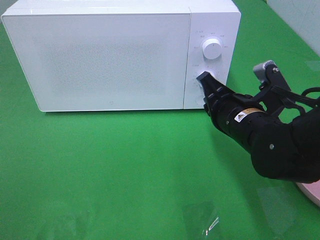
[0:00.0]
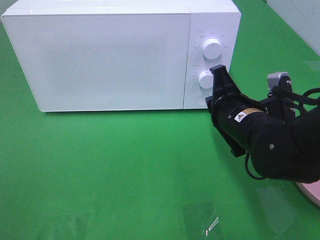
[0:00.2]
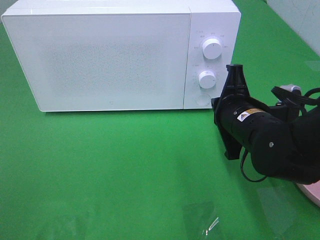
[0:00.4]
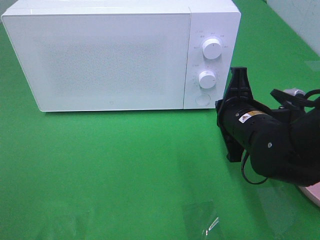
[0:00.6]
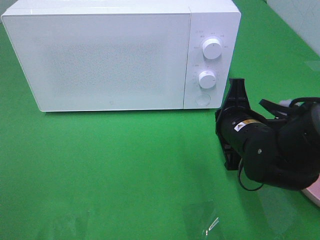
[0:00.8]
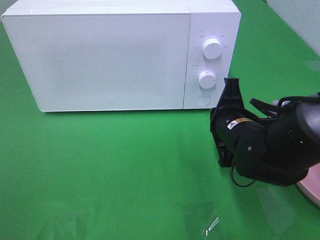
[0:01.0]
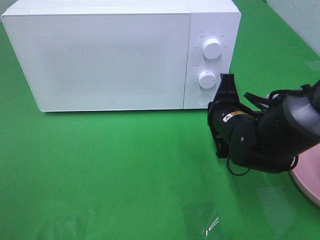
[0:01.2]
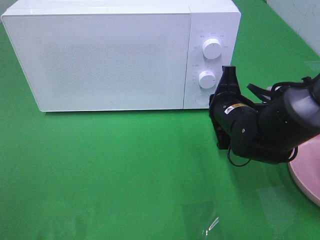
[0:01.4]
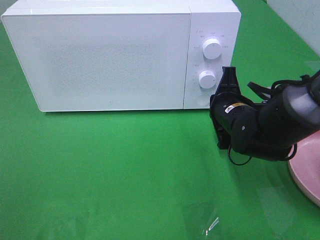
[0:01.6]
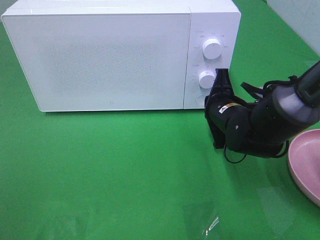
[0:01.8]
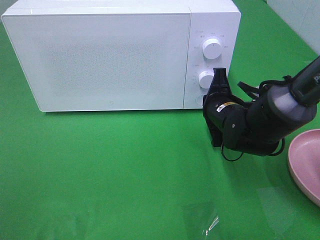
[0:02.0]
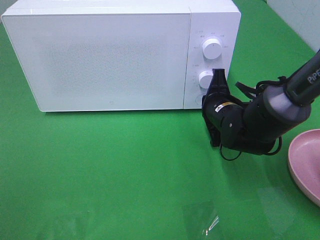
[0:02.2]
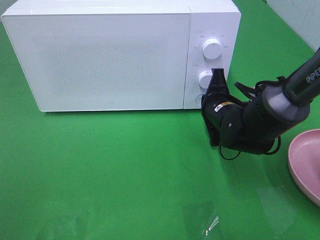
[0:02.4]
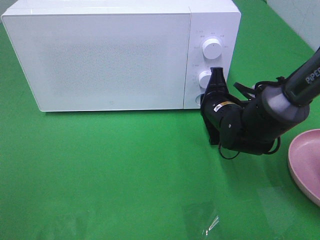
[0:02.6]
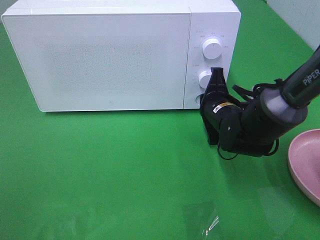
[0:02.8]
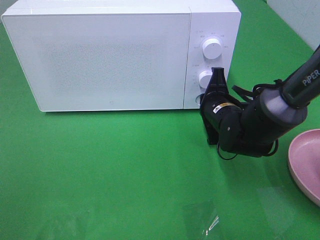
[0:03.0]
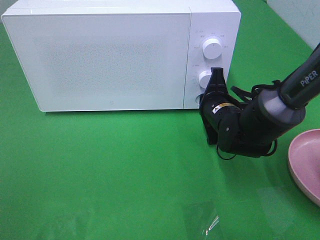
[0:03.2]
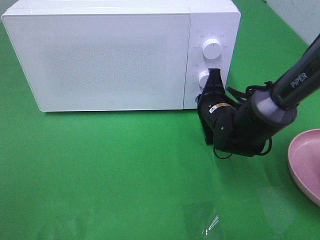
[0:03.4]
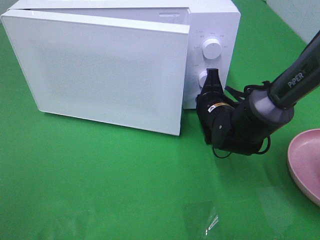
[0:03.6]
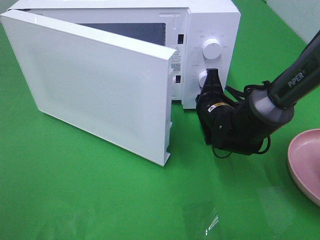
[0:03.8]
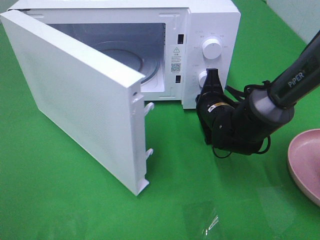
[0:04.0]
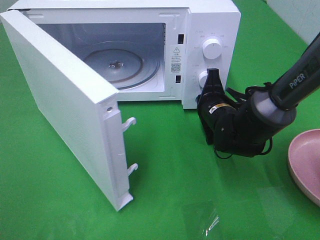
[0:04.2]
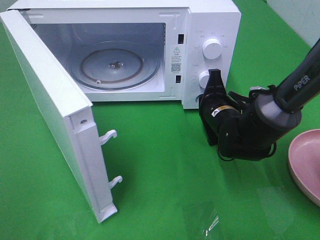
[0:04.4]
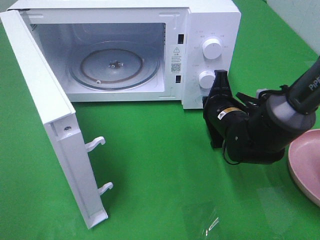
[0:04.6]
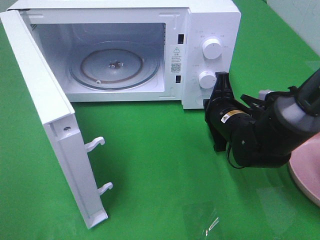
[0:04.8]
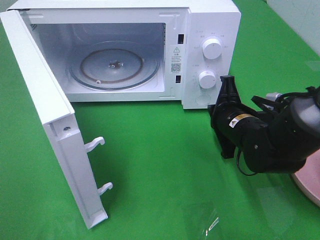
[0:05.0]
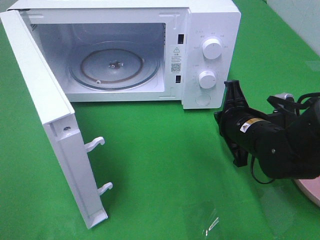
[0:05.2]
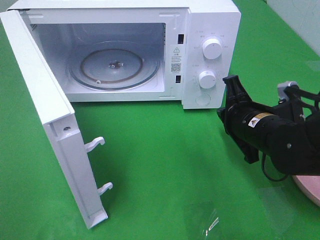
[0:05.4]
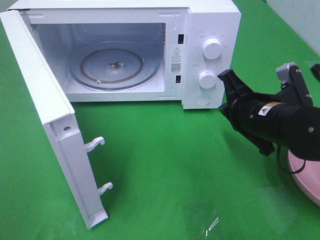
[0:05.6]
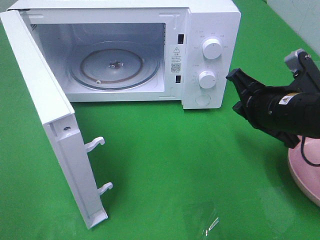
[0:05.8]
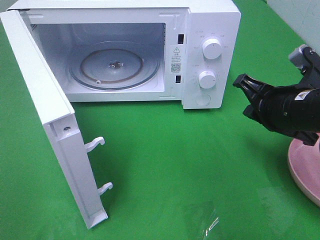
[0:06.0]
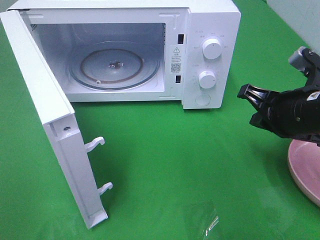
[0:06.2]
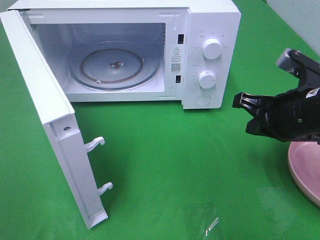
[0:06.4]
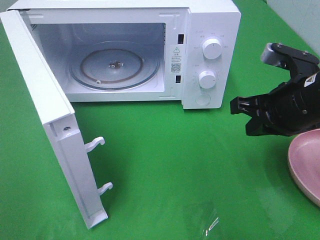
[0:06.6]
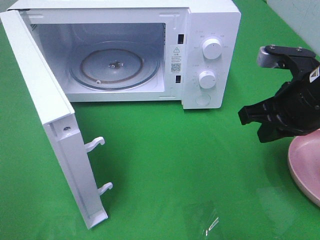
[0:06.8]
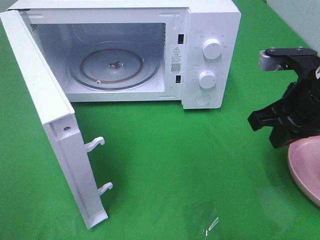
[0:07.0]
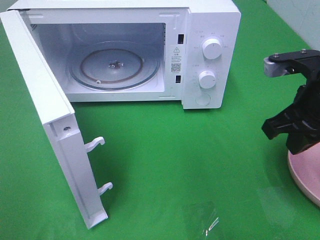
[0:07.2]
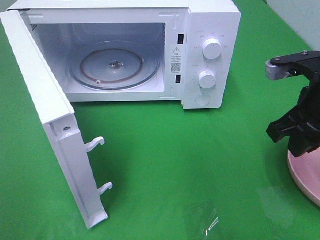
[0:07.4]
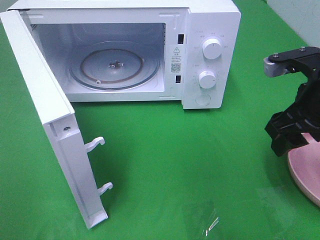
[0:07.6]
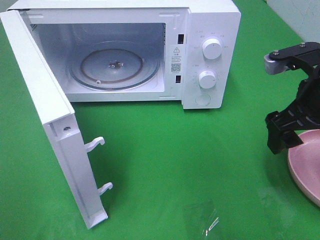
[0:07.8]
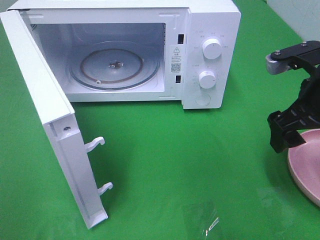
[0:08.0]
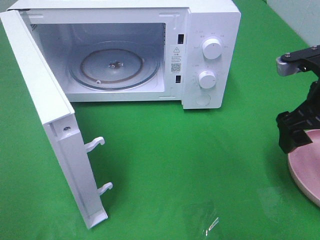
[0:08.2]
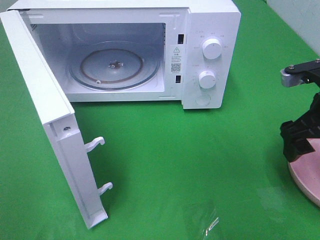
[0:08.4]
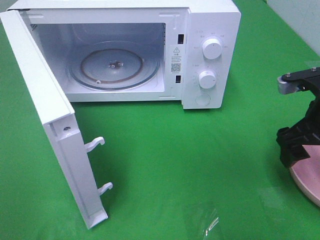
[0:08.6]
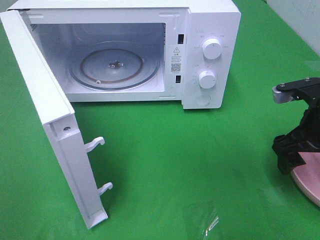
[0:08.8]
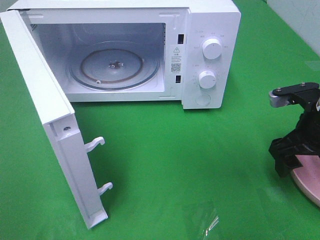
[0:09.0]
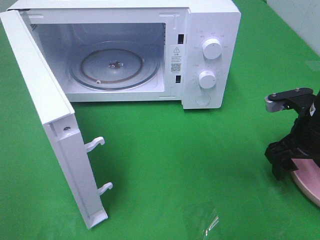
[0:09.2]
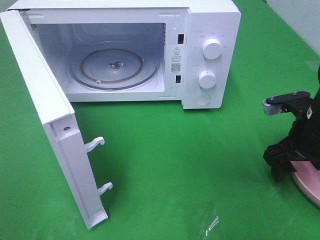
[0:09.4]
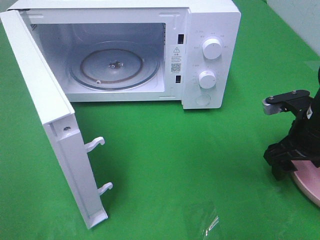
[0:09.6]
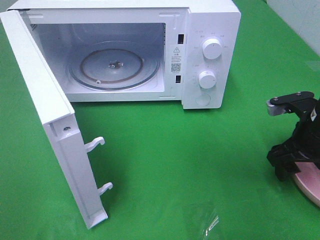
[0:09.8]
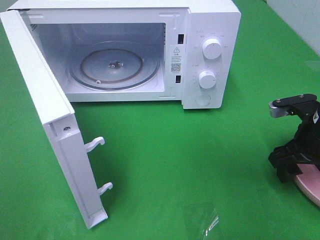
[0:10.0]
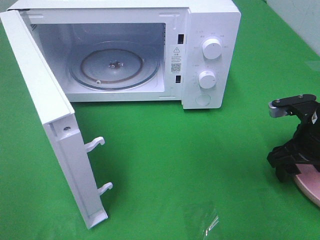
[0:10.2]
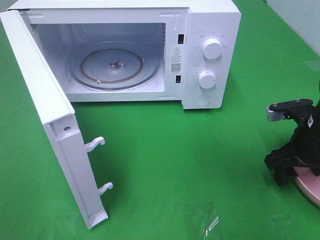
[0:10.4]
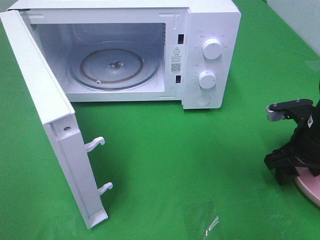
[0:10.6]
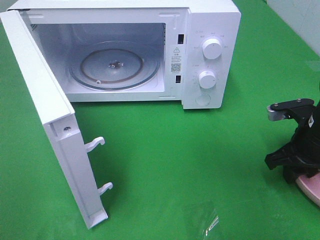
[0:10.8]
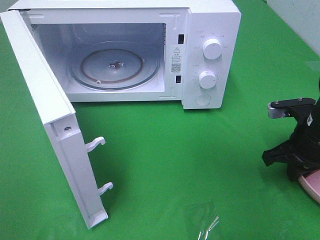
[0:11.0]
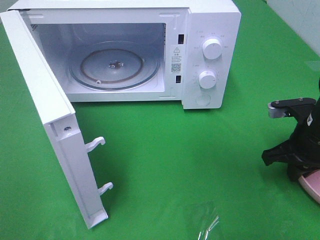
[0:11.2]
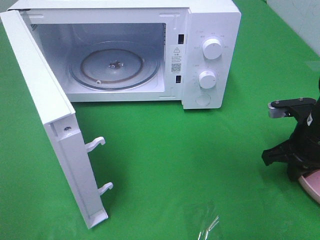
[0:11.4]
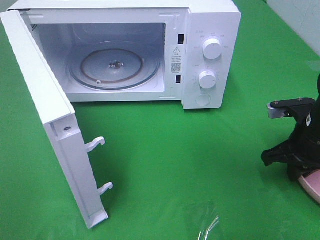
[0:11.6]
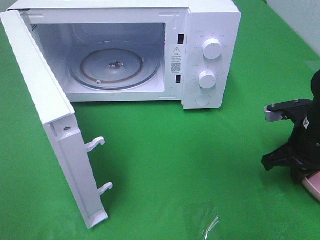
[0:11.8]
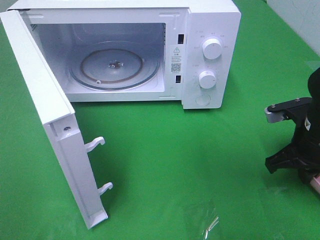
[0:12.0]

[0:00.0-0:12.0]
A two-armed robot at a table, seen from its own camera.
Task of the whole recording: Heat the burger.
Step, 0:00.0 to 0:04.6: Right hand: press the switch.
0:00.0 to 0:01.6: The right gripper is displaced forward by roughly 5 cm.
0:01.6 to 0:03.0: There are only small adjustments of the grippers.
0:04.4 to 0:06.0: The right gripper heads upward, backward and to the right, covering some 15 cm.
0:06.0 to 0:07.6: The right gripper moves upward, approximately 5 cm, and opens.
0:07.6 to 0:09.0: The right gripper shifts roughly 5 cm downward.
0:09.0 to 0:10.4: There are only small adjustments of the grippers.
0:10.4 to 0:12.0: The right gripper closes up.

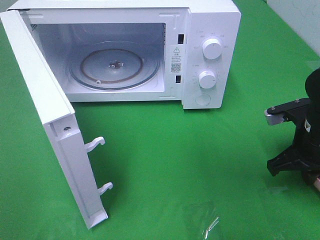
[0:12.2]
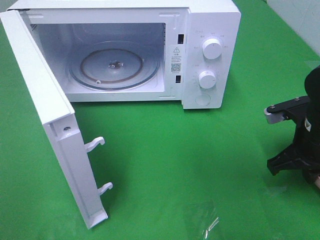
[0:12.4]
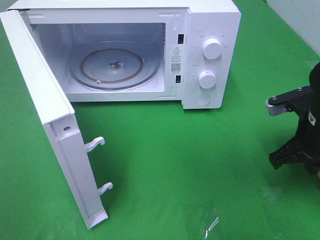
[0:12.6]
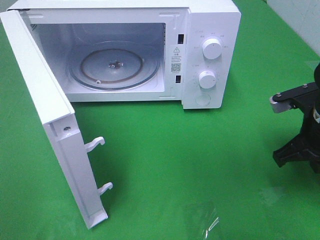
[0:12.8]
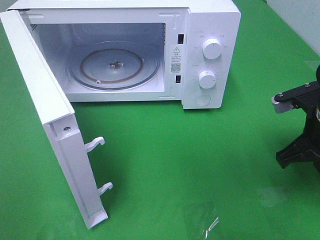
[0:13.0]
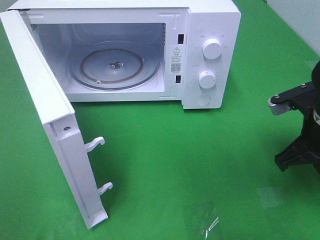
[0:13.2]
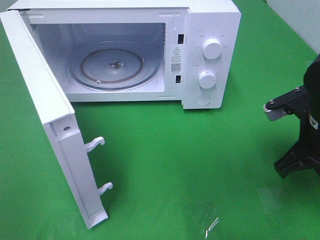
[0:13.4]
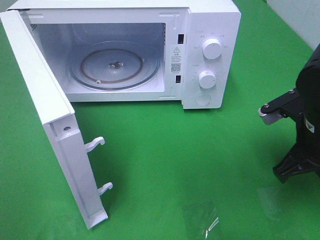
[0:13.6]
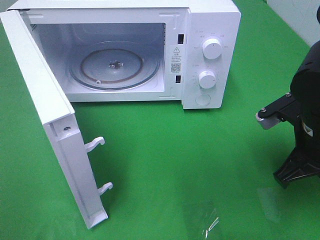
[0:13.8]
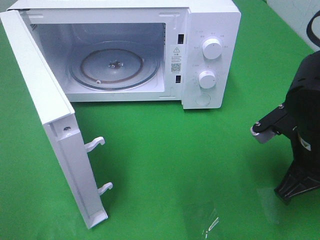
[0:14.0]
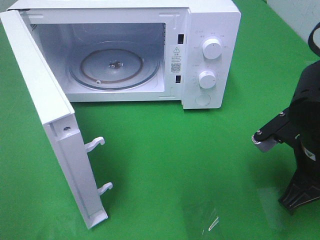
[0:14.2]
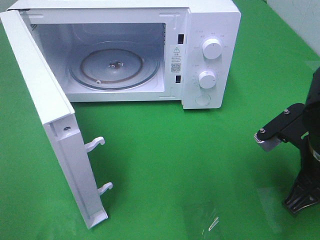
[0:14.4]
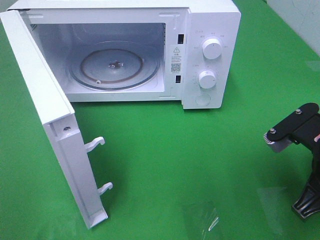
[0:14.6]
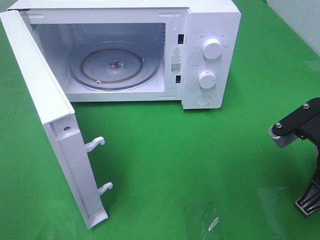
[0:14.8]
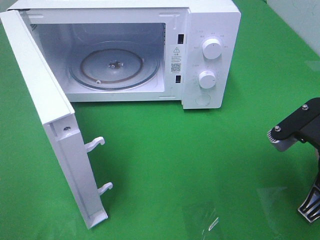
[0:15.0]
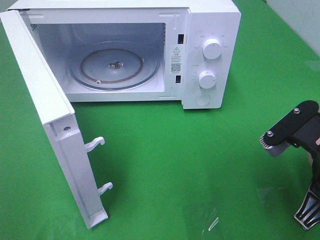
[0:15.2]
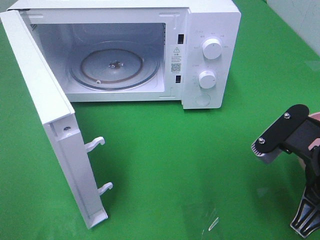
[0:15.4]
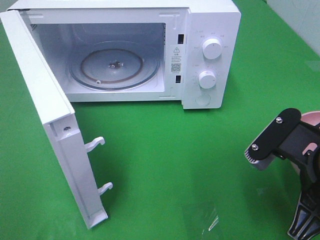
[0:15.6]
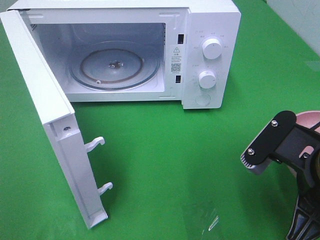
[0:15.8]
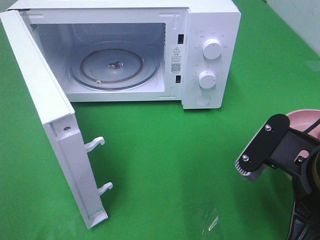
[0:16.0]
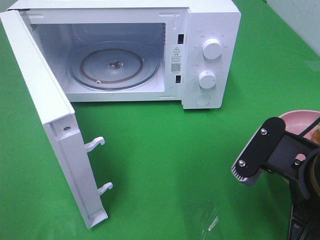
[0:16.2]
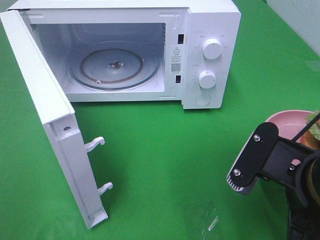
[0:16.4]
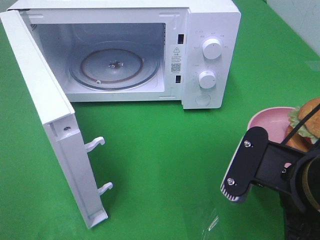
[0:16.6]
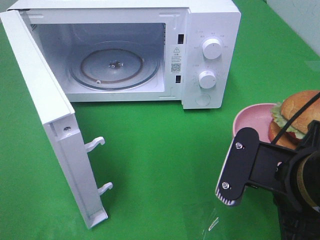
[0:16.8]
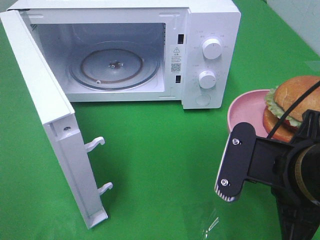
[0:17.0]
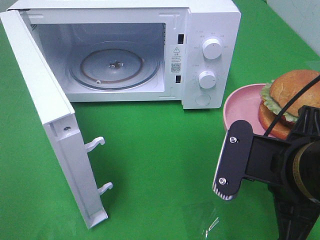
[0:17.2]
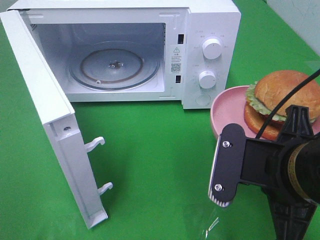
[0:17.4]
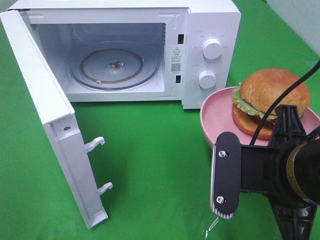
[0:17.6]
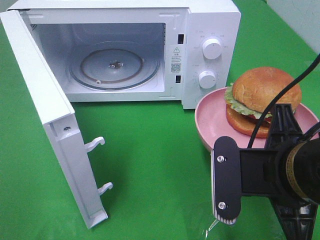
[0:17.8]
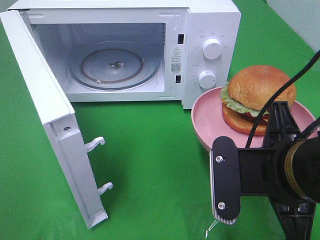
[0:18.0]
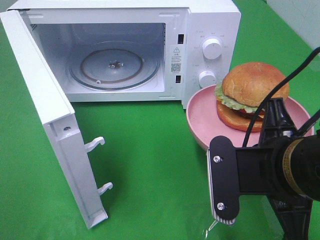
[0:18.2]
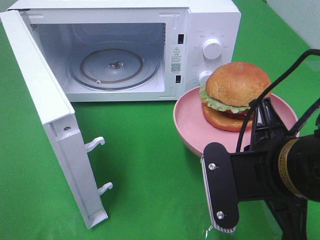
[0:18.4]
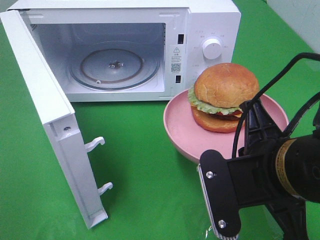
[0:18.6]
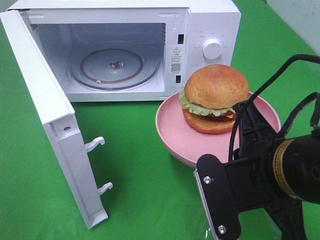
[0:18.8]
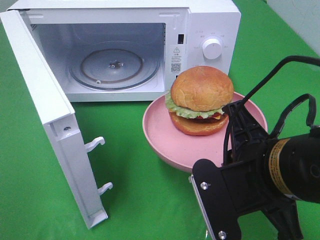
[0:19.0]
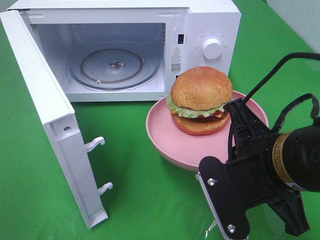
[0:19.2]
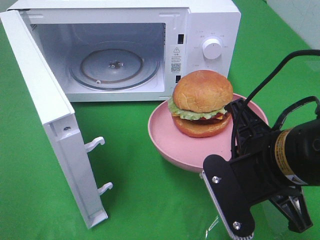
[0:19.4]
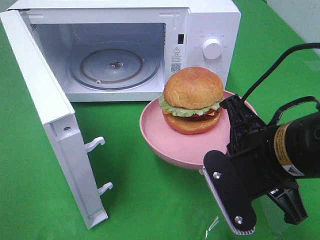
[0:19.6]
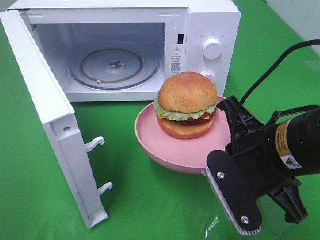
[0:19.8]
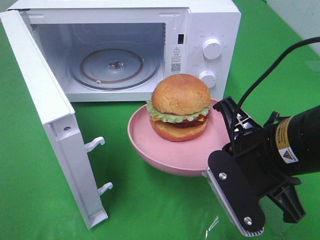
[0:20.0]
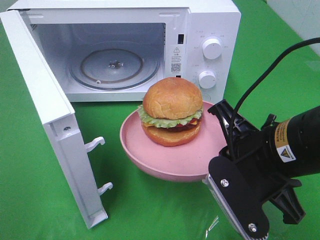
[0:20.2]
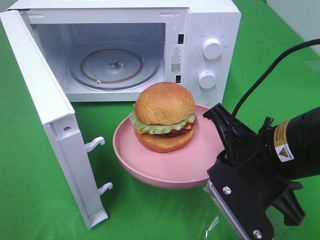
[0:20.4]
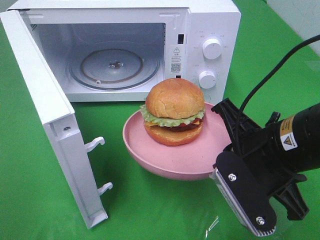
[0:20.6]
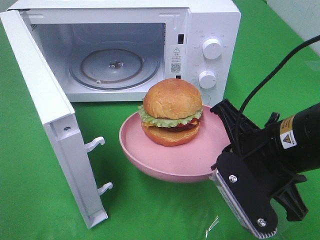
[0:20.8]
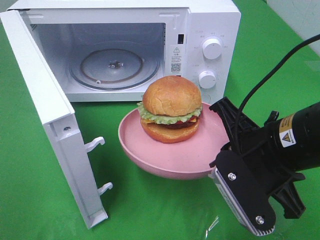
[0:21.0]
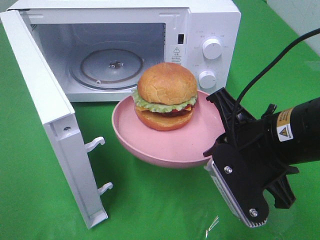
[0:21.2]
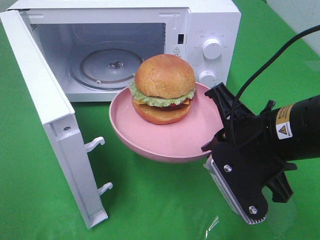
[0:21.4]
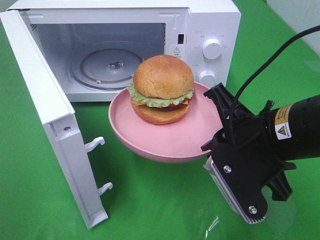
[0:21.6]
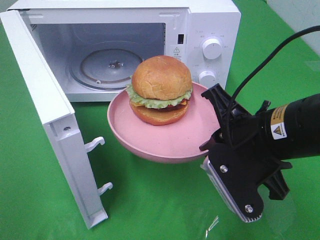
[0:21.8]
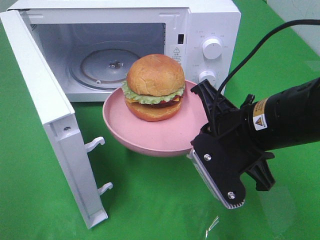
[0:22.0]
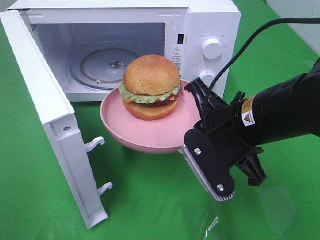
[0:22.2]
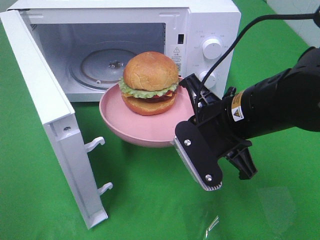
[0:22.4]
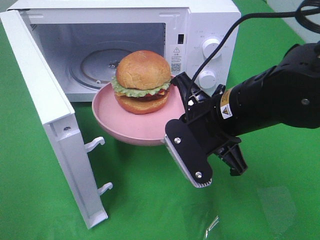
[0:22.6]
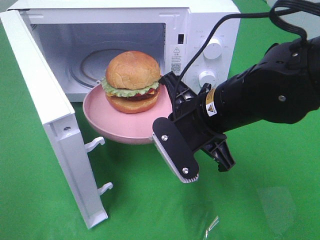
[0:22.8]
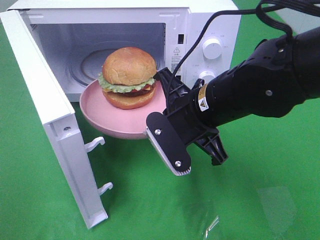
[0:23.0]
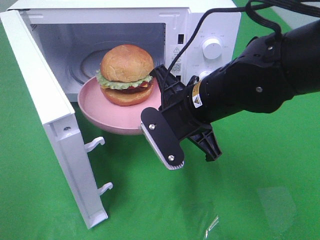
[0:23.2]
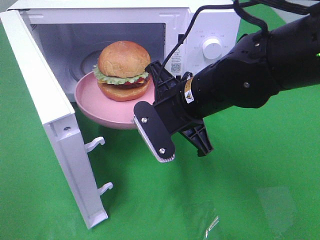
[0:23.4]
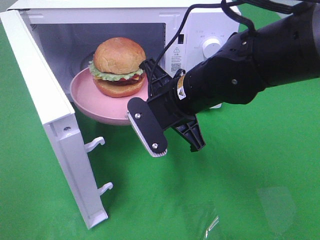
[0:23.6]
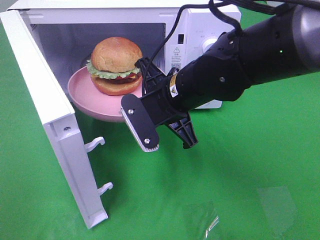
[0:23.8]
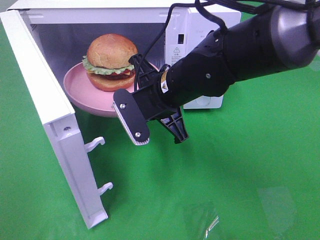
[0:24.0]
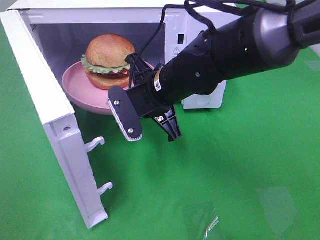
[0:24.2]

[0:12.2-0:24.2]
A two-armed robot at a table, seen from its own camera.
Task of the whole recording: Heat the burger.
0:12.2 to 0:13.8: The right gripper ends up roughly 5 cm from where it was.
0:13.8 to 0:15.2: The right gripper is displaced backward by roughly 5 cm.
0:15.2 to 0:16.6: The right gripper ends up some 5 cm from where it was.
0:19.8 to 0:21.2: The grippers move only a little.
0:21.2 to 0:22.6: The right gripper ends up some 5 cm from where it was.
0:22.6 to 0:24.2: The right gripper travels forward and to the left by roughly 10 cm.
